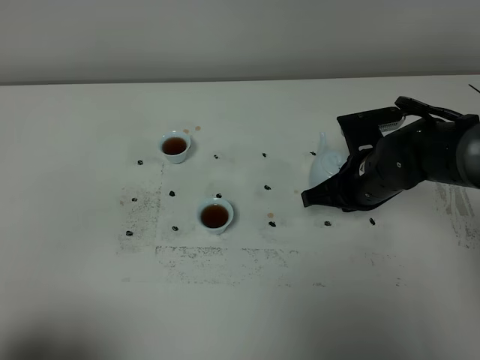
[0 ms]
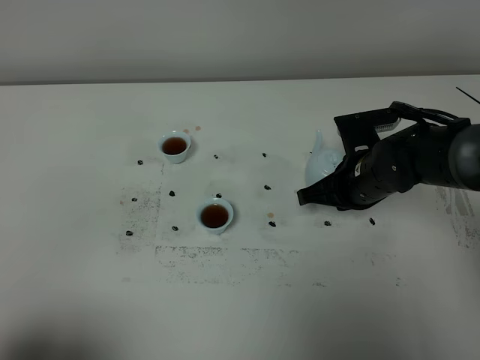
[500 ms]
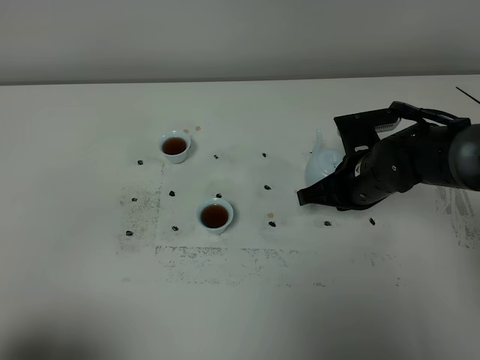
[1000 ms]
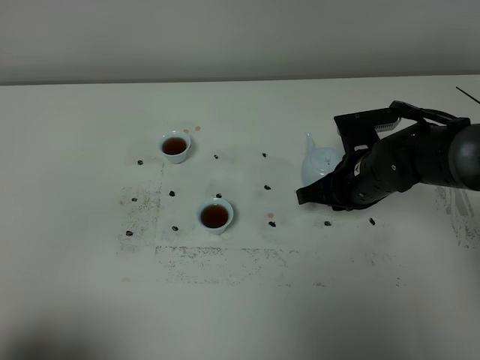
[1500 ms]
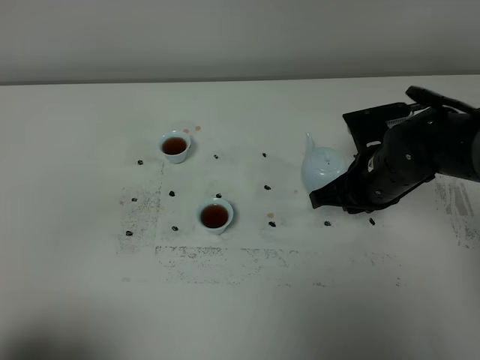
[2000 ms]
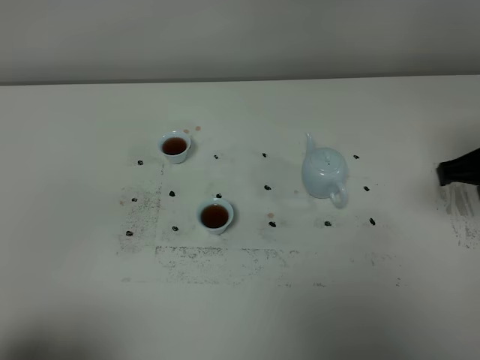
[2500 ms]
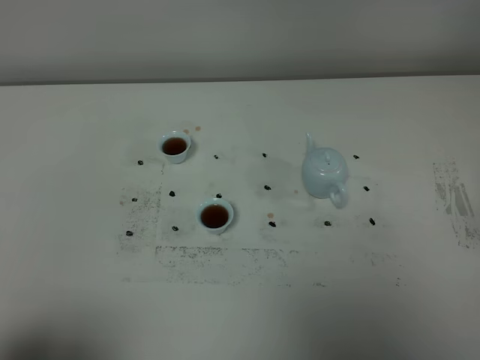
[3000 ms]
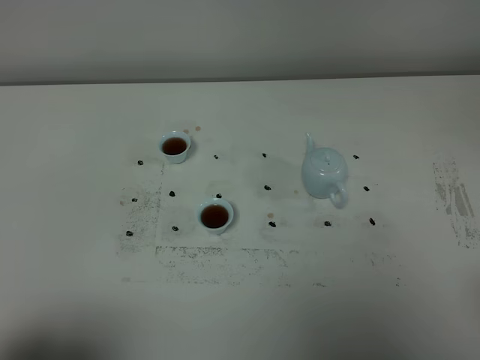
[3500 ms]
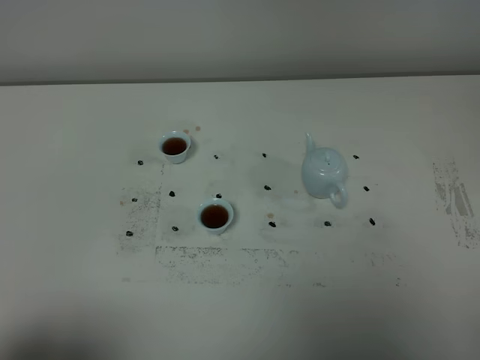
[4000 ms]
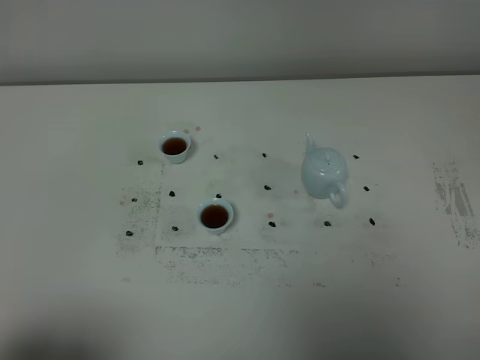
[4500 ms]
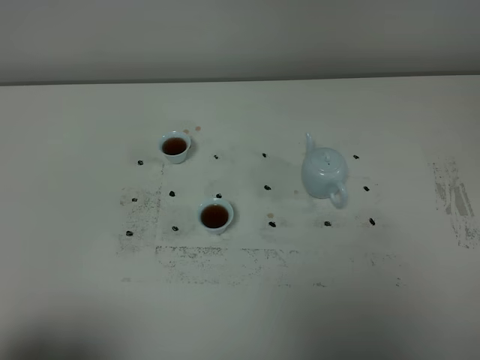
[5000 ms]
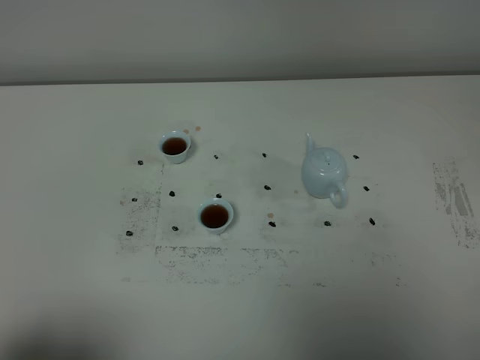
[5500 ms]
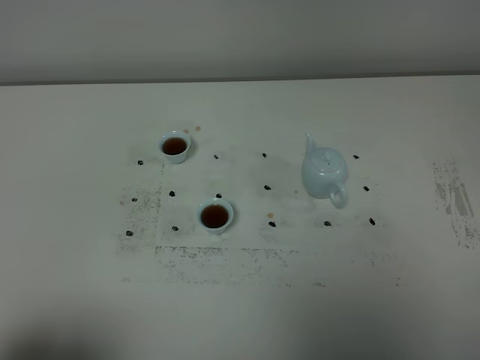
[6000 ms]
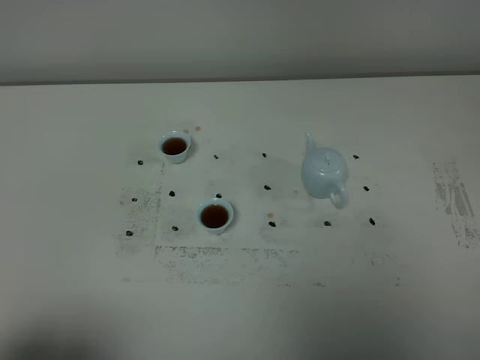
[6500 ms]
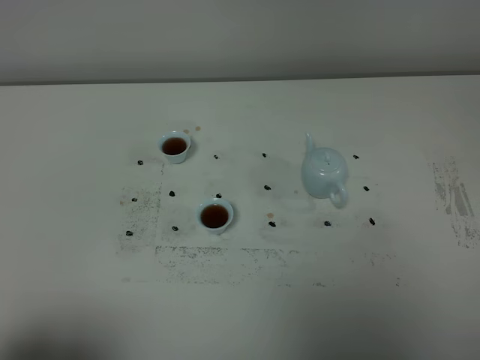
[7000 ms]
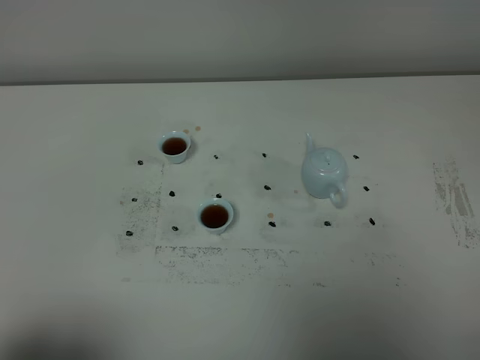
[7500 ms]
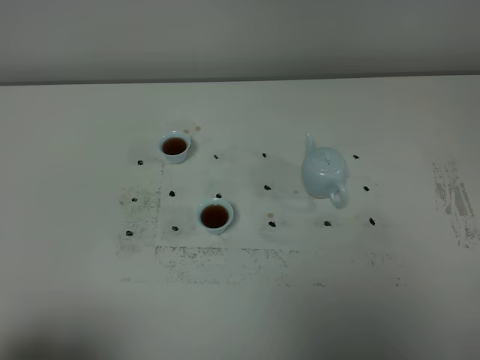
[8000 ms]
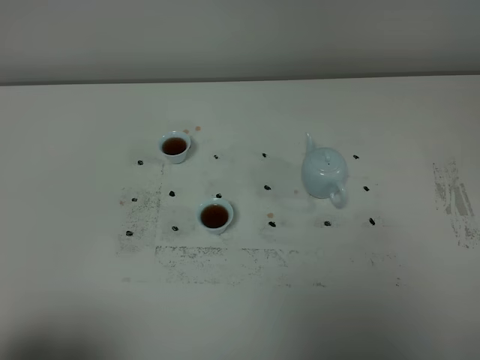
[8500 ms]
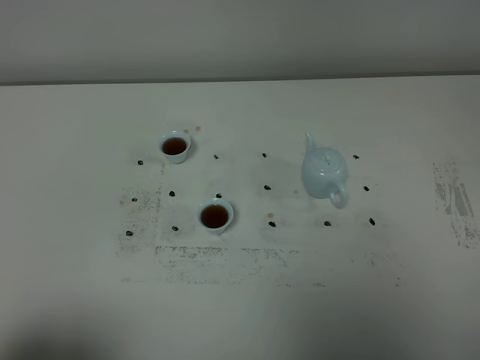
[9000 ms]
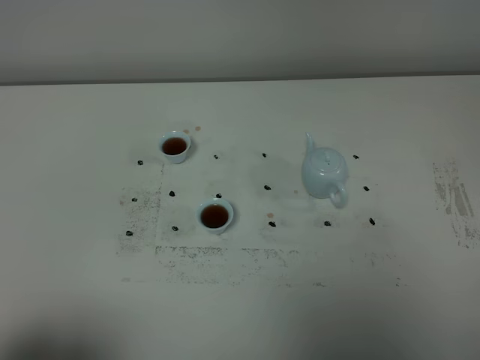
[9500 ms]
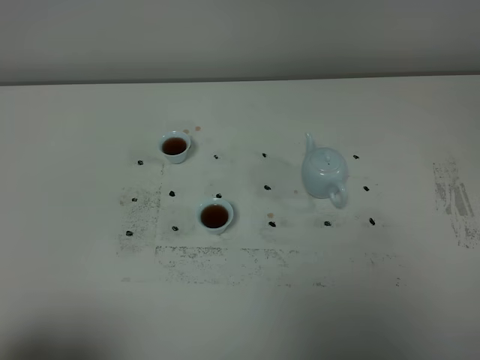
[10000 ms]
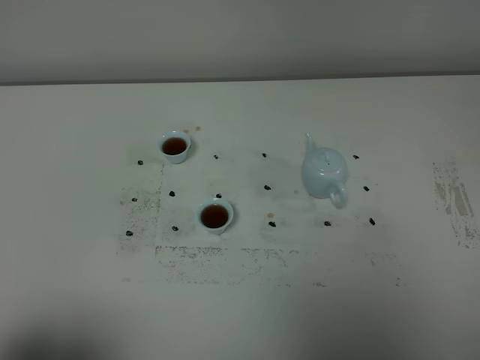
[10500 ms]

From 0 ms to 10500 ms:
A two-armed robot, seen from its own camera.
Task of the whole recording: grasp the blue porcelain teapot and pour the tea into the two blue porcelain teacups one by one, put the blue porcelain teapot back in its original place.
From 0 ms to 2000 ms: The right gripper opens.
From 2000 ms to 4000 ms: The right gripper heads backward, covering approximately 30 cm.
From 6500 ms to 10500 ms: Both grippers stay put.
